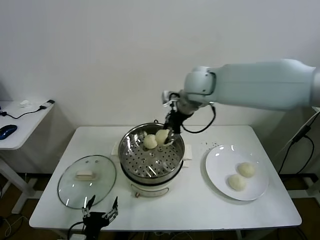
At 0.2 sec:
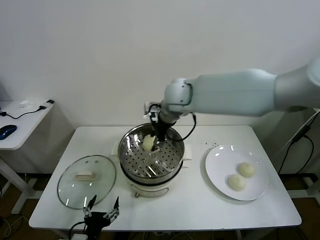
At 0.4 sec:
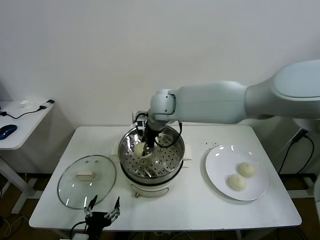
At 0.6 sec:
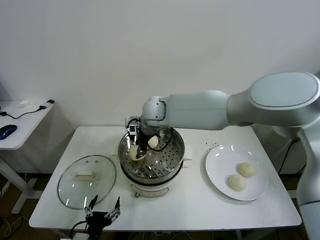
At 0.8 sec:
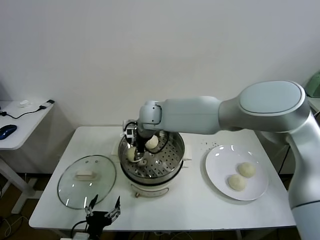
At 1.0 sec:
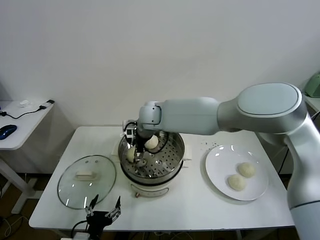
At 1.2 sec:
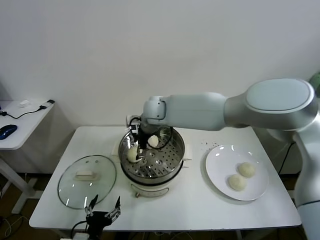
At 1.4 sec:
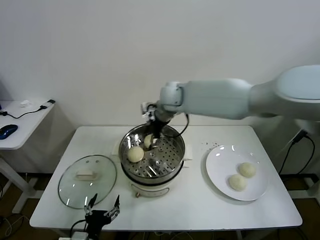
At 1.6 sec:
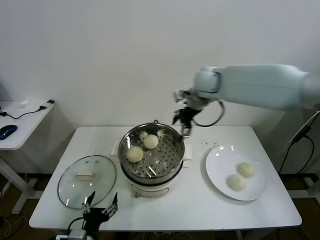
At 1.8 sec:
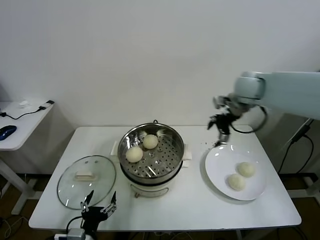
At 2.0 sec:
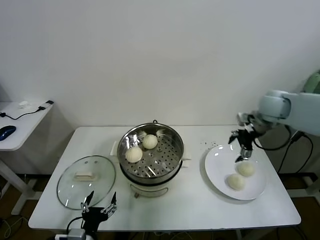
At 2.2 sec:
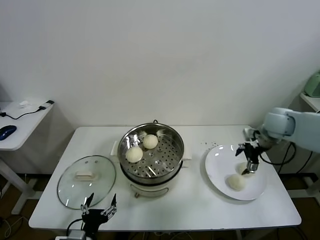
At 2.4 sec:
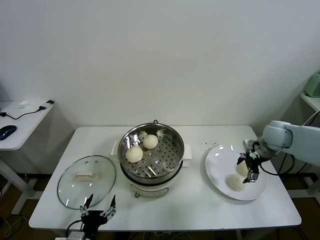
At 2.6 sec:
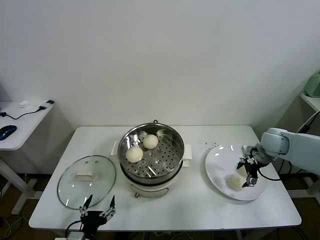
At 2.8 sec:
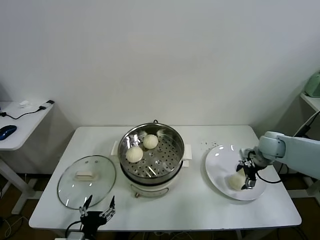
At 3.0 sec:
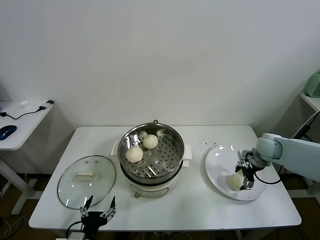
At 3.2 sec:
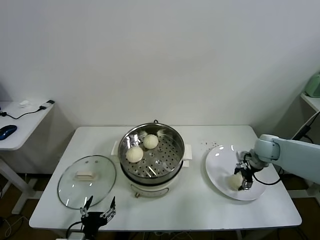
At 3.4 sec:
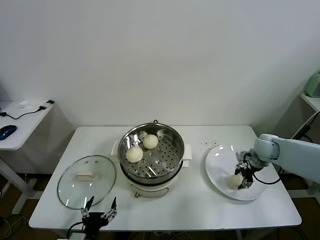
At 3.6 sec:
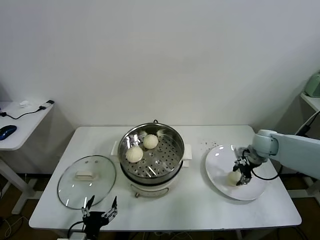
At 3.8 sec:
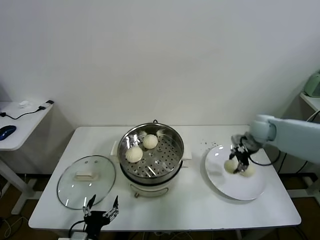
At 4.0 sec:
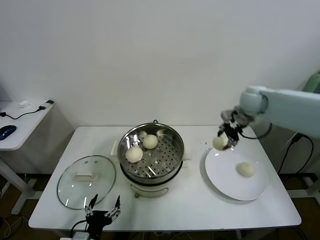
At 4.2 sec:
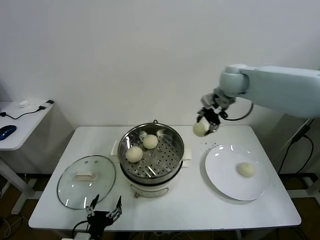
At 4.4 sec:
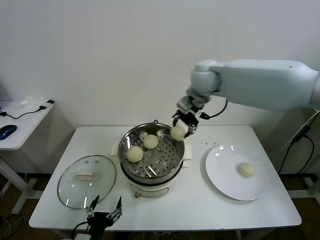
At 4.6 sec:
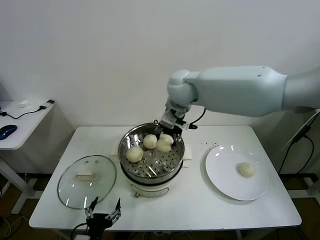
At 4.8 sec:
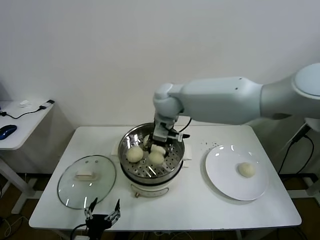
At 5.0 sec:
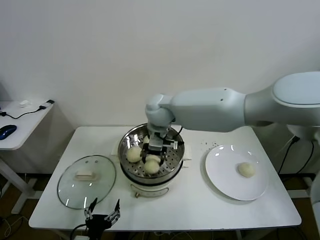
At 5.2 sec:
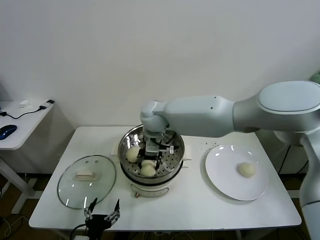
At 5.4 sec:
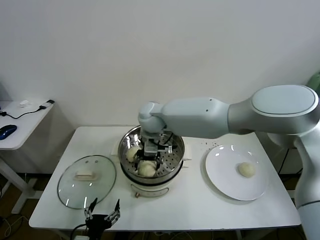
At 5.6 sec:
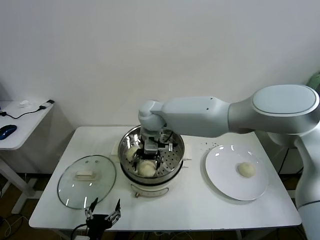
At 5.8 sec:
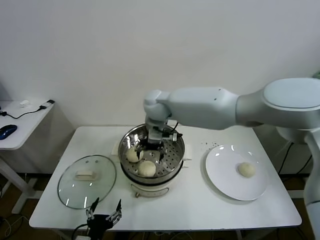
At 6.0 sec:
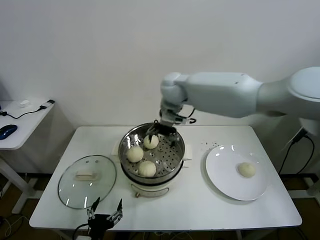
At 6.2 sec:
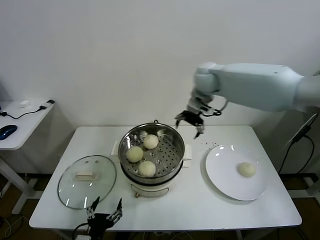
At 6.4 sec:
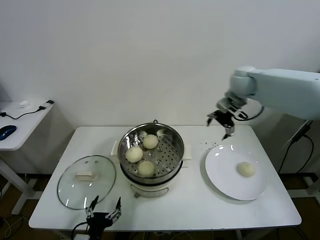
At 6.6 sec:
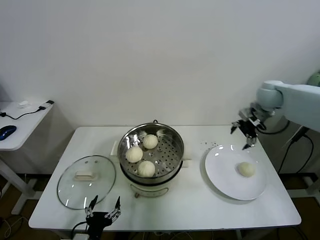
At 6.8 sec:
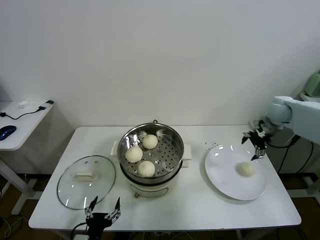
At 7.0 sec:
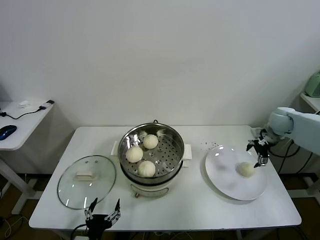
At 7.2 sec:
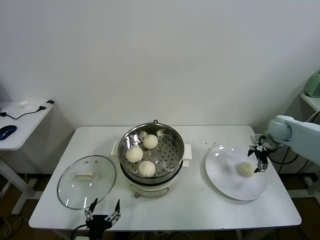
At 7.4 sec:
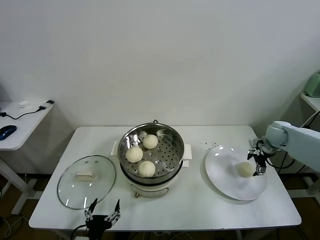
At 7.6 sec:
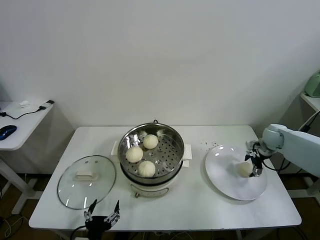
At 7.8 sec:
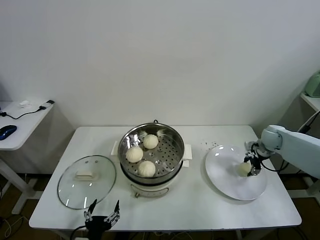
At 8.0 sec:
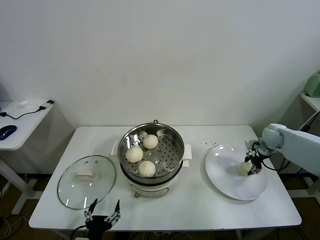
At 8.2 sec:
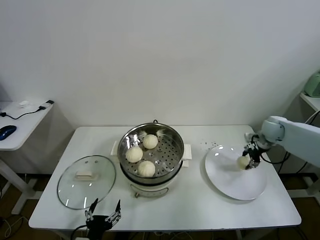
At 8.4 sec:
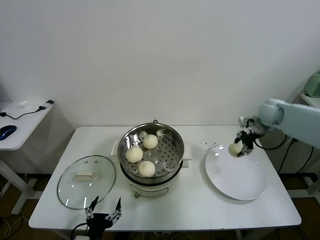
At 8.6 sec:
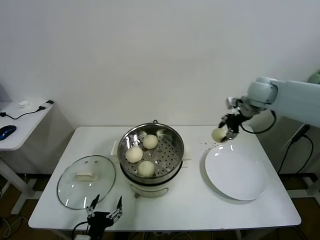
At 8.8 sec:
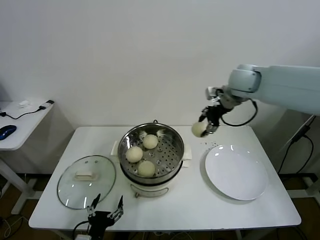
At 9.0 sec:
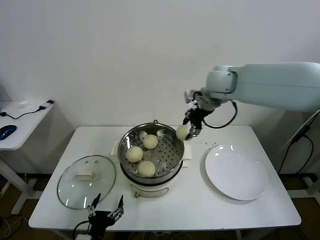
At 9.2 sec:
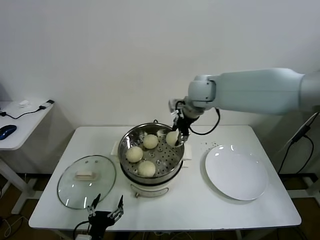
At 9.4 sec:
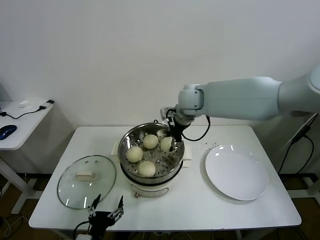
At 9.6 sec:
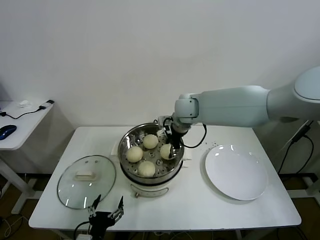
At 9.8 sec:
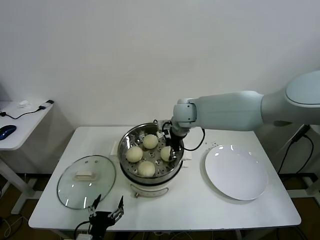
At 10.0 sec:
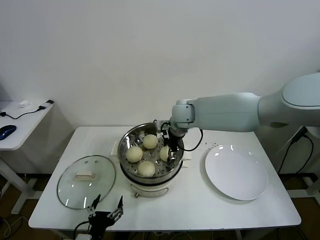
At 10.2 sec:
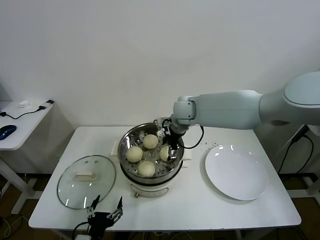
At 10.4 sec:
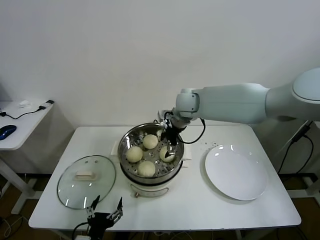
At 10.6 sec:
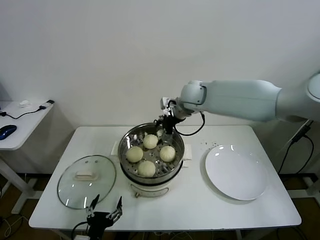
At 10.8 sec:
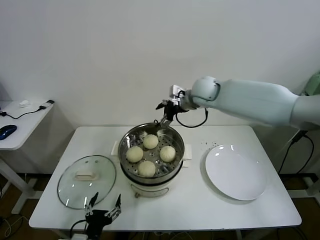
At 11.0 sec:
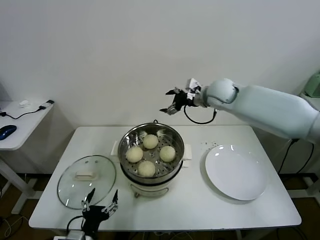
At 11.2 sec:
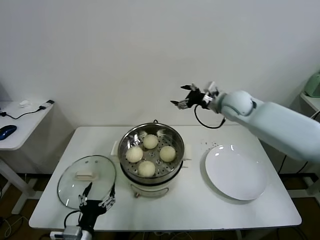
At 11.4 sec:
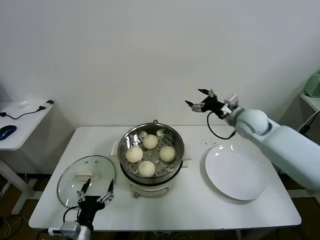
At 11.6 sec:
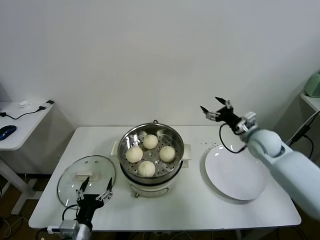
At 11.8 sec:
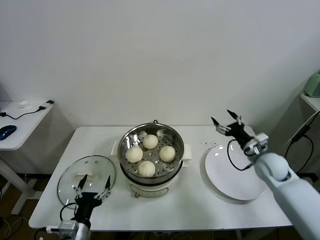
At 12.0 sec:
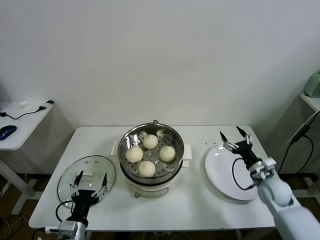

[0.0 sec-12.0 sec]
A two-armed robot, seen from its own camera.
Task of the whole recording: take steamed baozi put them in steamer.
Step, 1.2 sec to 3.4 sec: Grasp the baozi in the plate with right gripper.
Step, 3.6 sec to 5.4 sec: Place the baozi on the steamer with right gripper.
Step, 5.6 sec to 7.8 sec: Grasp the baozi in the plate with right gripper.
Step, 8.0 sec to 10.0 sec: Place the baozi on the steamer with right gripper.
0.0 sec to 1.6 sec: The right gripper moves to the right, some 10 cm, and opens its fingers.
1.6 sec to 3.0 sec: The right gripper moves downward and to the right, some 30 cm.
3.0 sec to 4.4 sec: The right gripper goes roughly 40 cm to the left and upward, and closes up.
4.4 sec to 6.0 sec: The right gripper moves some 15 cm to the left and comes back, and opens up.
6.0 sec to 7.6 sec: The right gripper travels to the right and downward by about 40 cm.
7.6 sec to 9.0 sec: The right gripper heads to the left and upward, covering about 35 cm, and closes its fingers.
9.0 sec to 10.4 sec: The right gripper is displaced downward and to the left by some 10 cm, and opens its fingers.
10.4 sec to 12.0 sec: The left gripper moves some 5 cm, while the right gripper goes roughly 40 cm to the right, downward and backward.

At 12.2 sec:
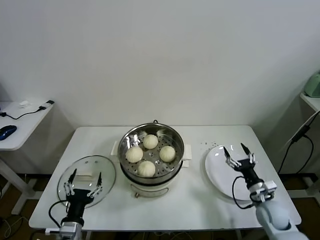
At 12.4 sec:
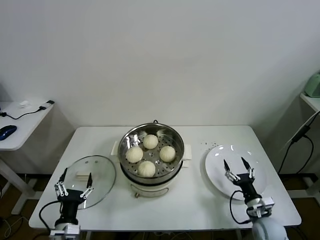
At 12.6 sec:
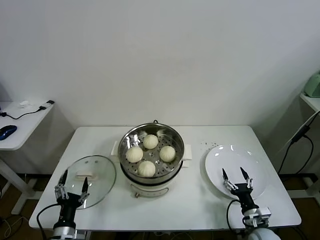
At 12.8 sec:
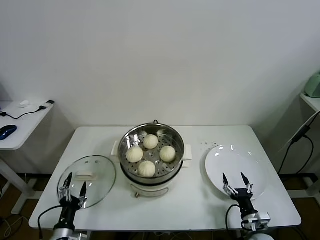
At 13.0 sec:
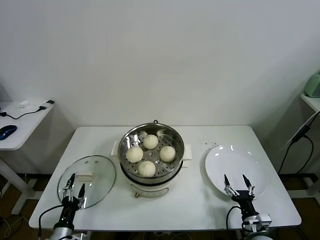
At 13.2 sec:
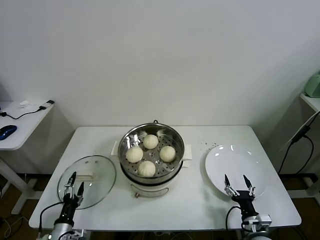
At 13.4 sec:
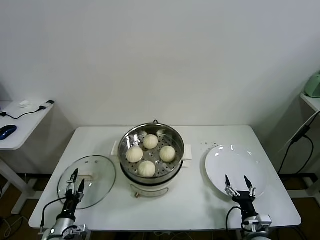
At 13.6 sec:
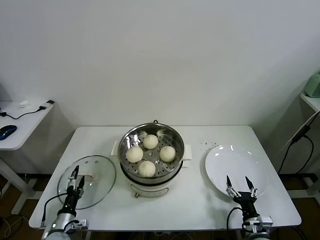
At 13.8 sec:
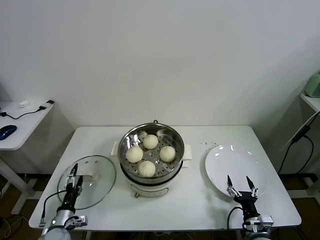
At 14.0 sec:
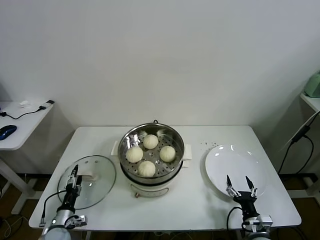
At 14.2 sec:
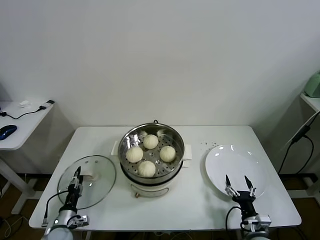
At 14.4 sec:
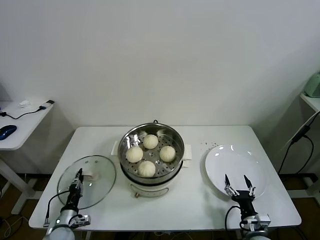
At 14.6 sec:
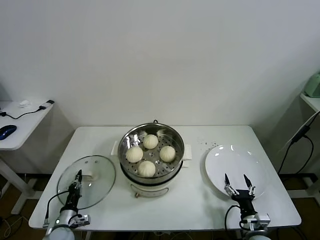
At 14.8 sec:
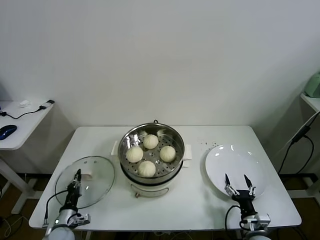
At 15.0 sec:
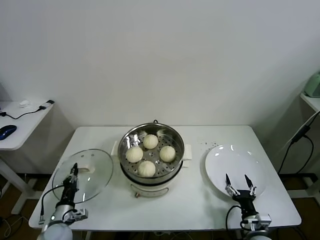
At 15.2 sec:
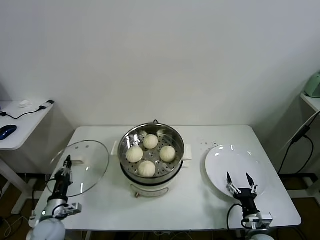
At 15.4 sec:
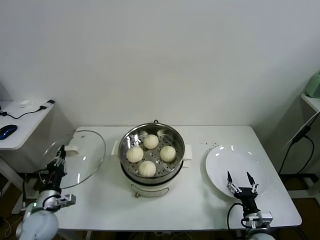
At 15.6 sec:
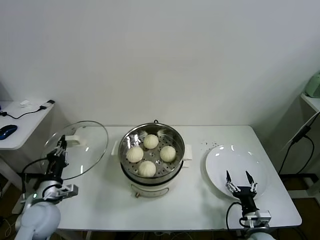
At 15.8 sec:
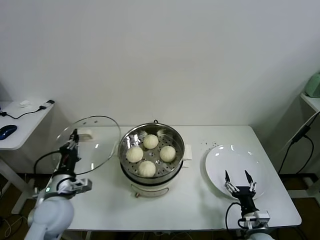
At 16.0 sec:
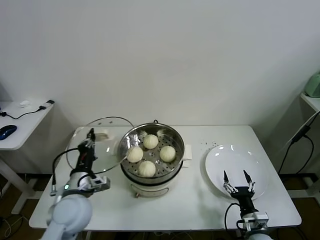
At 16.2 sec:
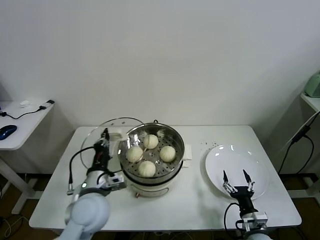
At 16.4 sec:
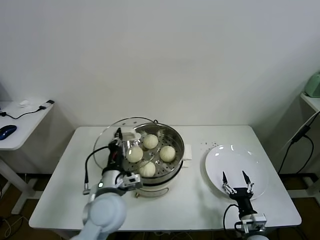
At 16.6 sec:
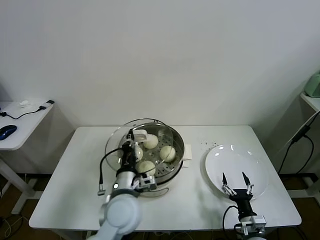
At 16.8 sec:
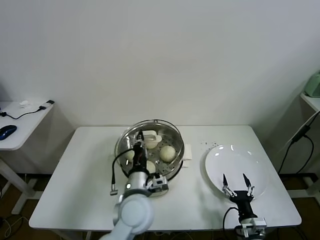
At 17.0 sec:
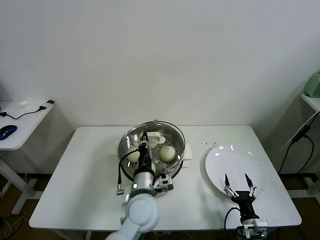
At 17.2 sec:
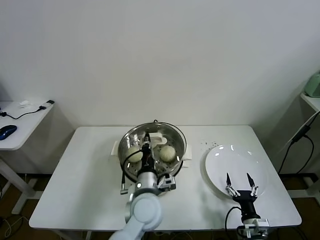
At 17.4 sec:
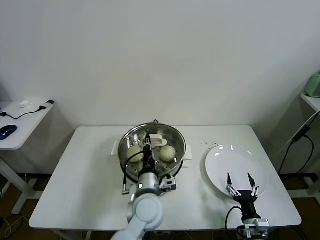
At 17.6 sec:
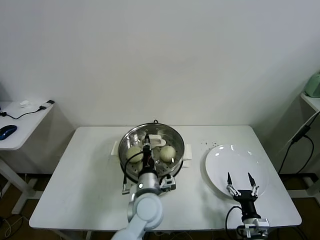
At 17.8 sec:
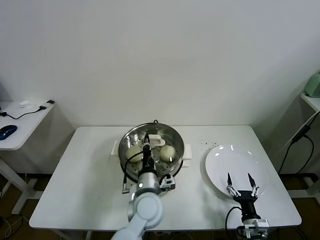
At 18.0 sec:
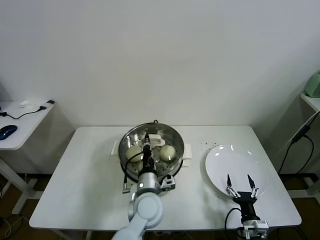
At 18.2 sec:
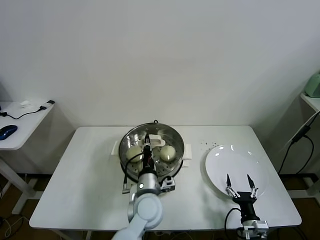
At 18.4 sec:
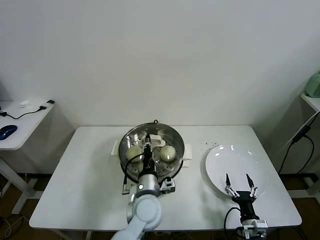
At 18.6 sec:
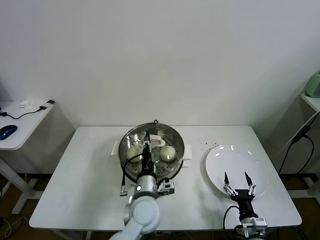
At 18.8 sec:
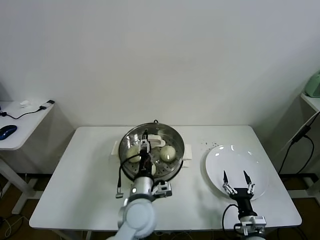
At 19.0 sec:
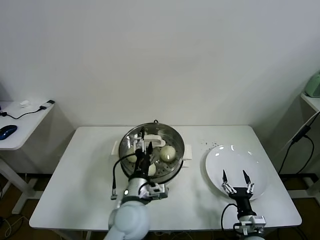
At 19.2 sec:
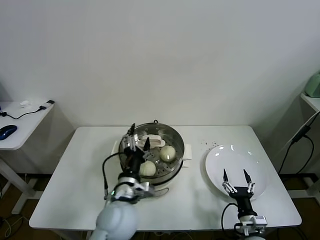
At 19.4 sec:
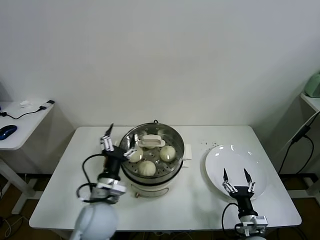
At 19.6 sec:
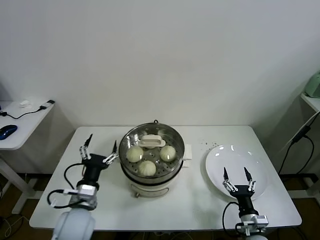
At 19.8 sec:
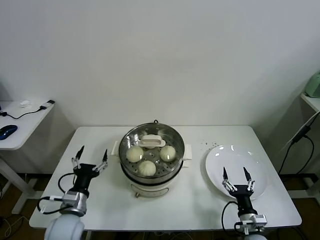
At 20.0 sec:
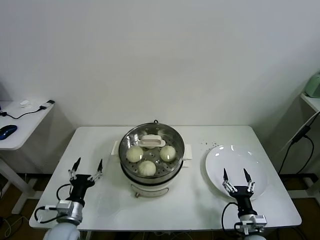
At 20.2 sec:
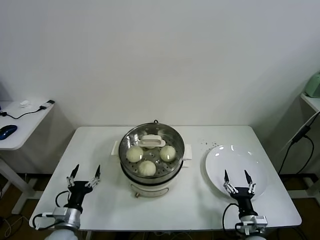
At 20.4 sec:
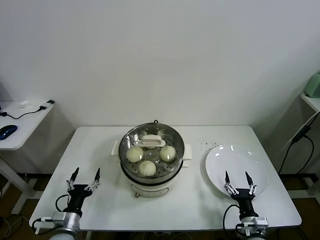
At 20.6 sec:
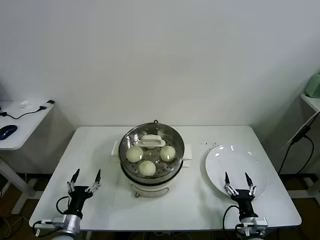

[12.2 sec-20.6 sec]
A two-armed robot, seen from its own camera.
Task of the whole recording: take steamed baozi put them in steamer.
Step, 12.2 sec to 14.8 sec: Grasp the pot lid with left gripper.
Step, 15.0 sec to 18.2 sec: Place the pot lid on the steamer with left gripper.
12.2 sec to 13.6 sec: The right gripper goes some 10 cm backward and to the left; the left gripper goes approximately 15 cm downward, to the left and forward.
13.6 sec to 15.0 sec: The left gripper closes its fingers.
15.0 sec to 16.4 sec: The left gripper moves upward and to the right, approximately 30 cm.
16.4 sec to 17.8 sec: The left gripper travels to the right and downward by approximately 15 cm.
17.8 sec to 19.2 sec: The left gripper travels to the left by some 5 cm, and opens its fingers.
19.2 sec to 20.6 sec: The left gripper shifts some 30 cm to the left and downward.
